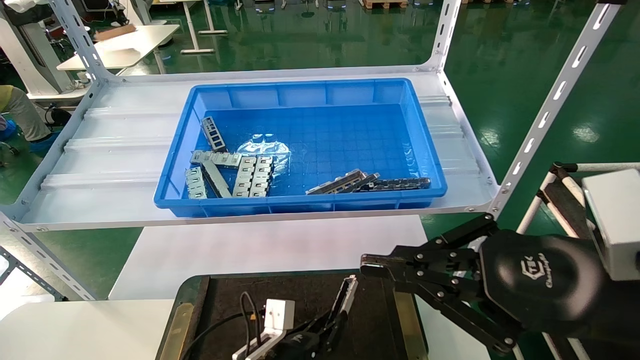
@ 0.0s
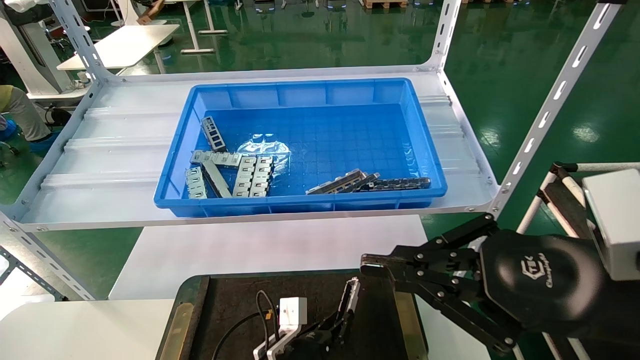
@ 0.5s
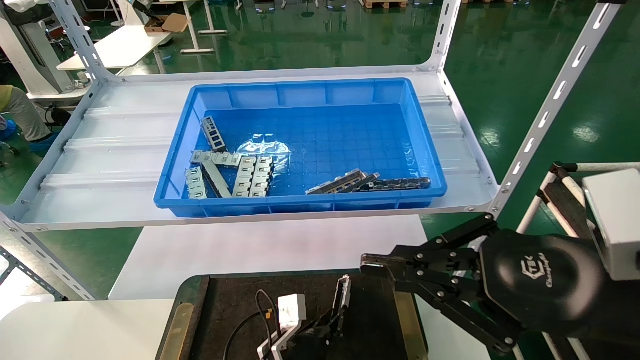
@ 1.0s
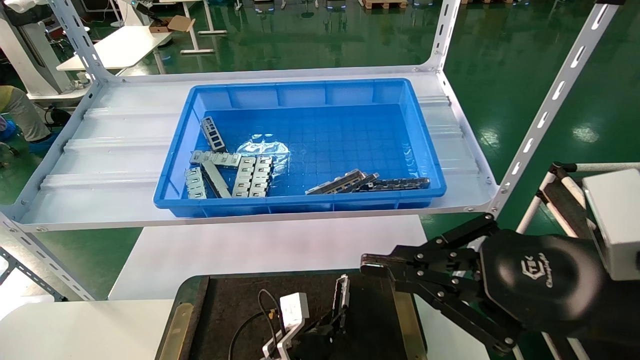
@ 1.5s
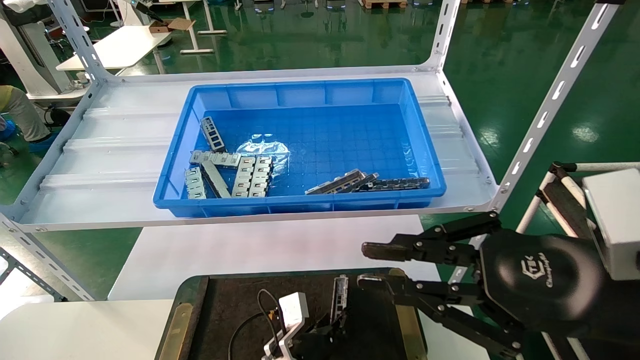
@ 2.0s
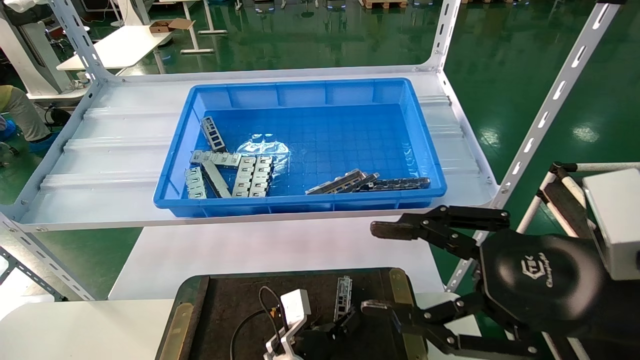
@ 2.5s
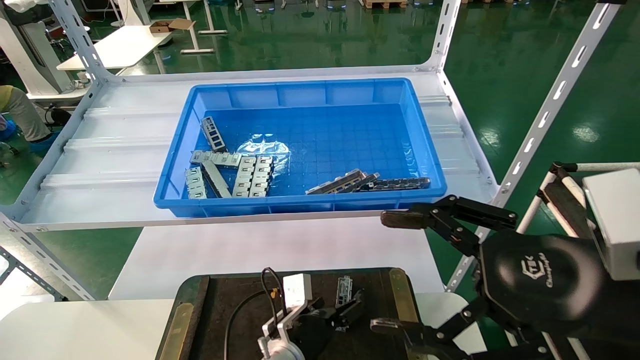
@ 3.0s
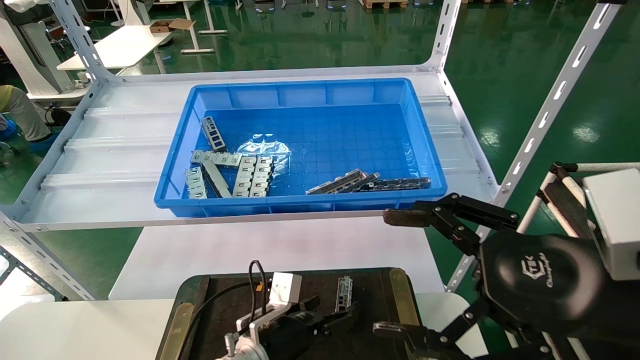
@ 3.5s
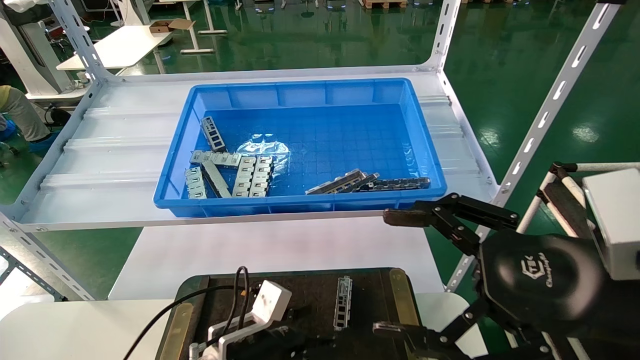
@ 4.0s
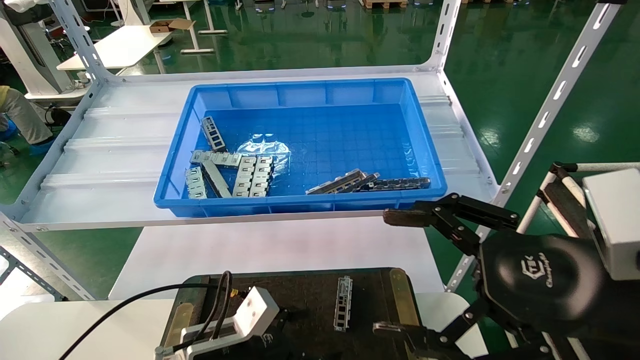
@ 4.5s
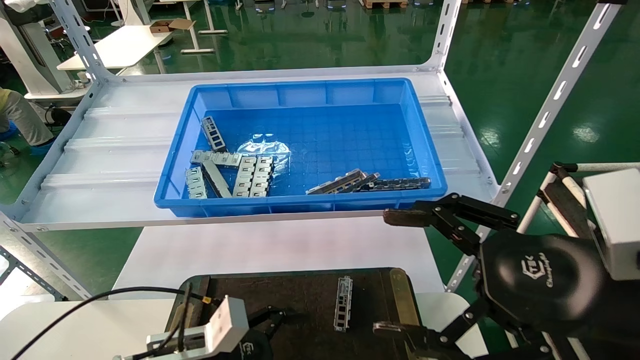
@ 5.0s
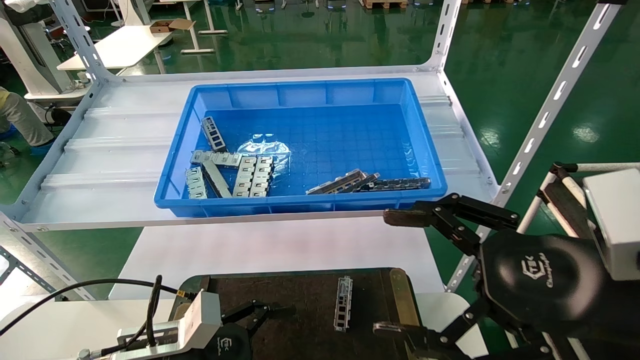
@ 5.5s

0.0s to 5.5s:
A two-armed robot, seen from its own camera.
Task of the whole recording: Grasp the part with one hand and place it on the black container.
Step, 0.0s to 2.5s: Place the front USB bracket into the box.
0.0s to 2.0s: The left gripper shifts some 5 cm to the right.
2.0s to 3.5s: The left gripper is displaced upward and to the left by approximately 10 cm, and opens; the right gripper opens up.
3.5s to 5.5s: The left gripper moves to the left, backward and upward, roughly 15 cm.
